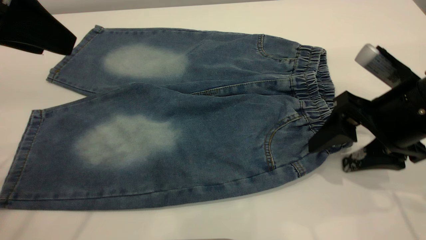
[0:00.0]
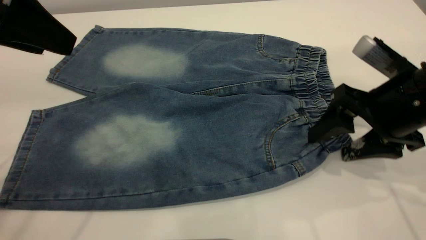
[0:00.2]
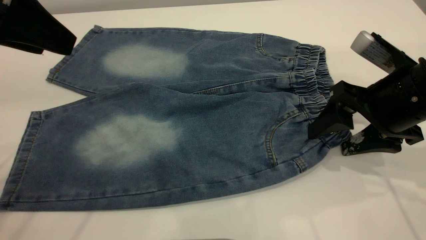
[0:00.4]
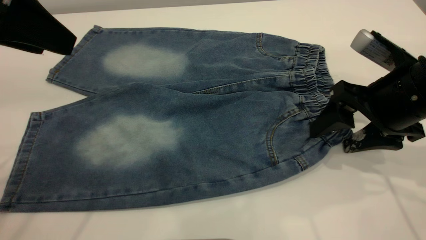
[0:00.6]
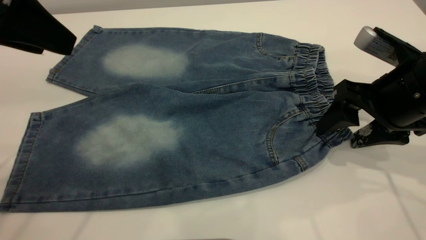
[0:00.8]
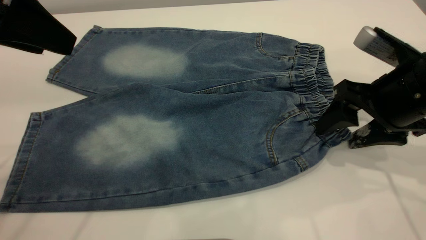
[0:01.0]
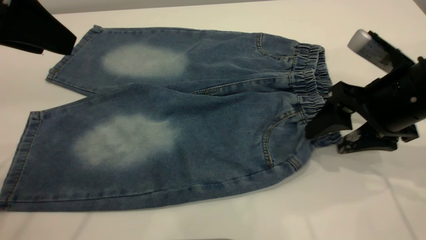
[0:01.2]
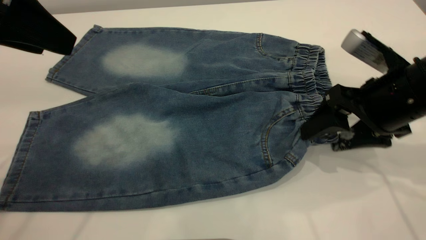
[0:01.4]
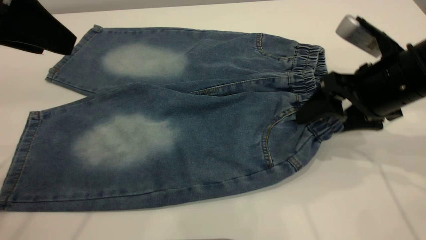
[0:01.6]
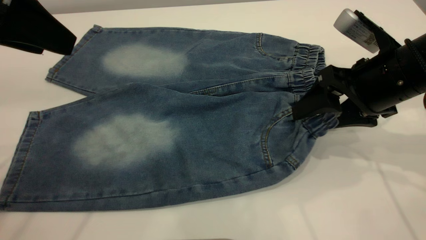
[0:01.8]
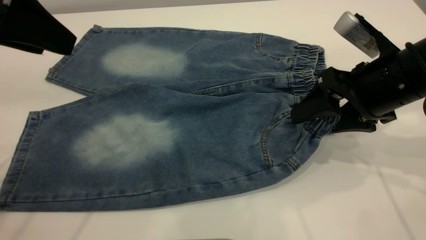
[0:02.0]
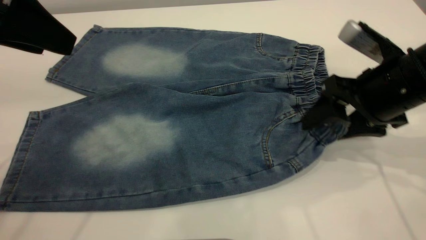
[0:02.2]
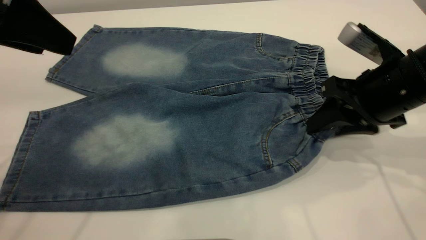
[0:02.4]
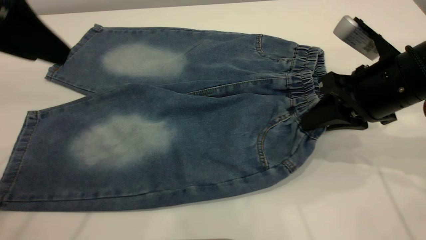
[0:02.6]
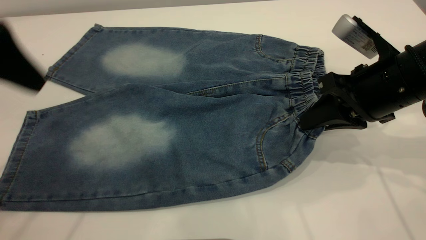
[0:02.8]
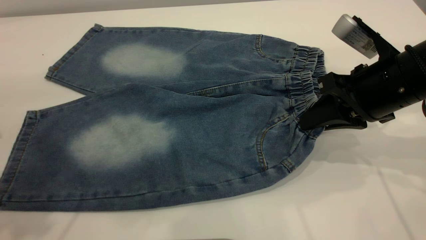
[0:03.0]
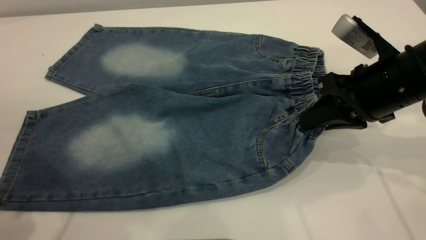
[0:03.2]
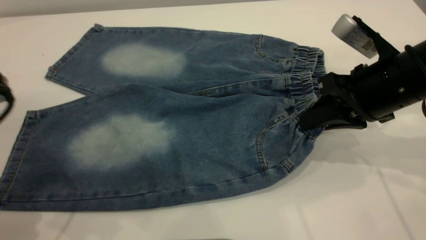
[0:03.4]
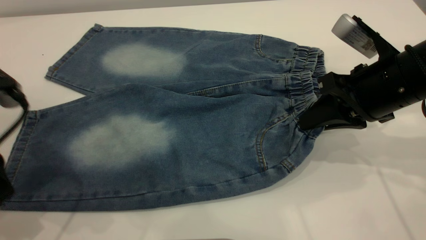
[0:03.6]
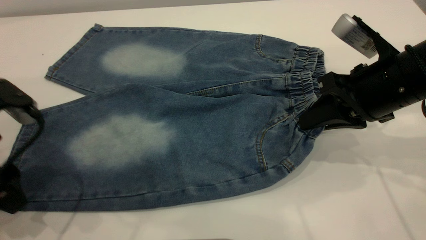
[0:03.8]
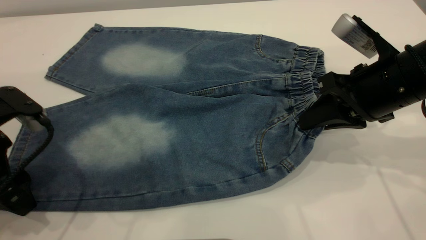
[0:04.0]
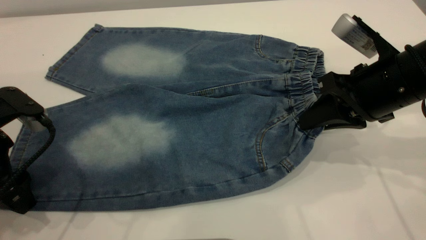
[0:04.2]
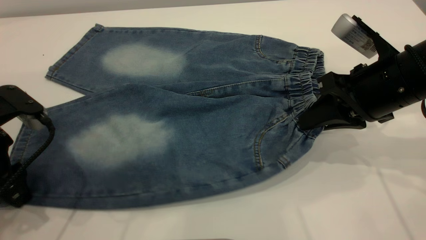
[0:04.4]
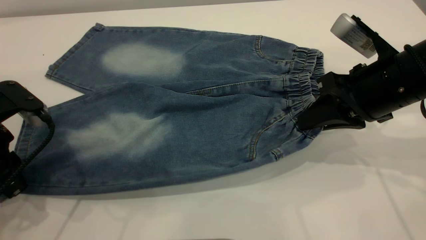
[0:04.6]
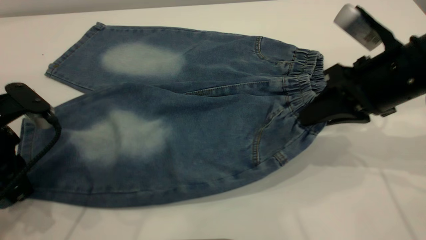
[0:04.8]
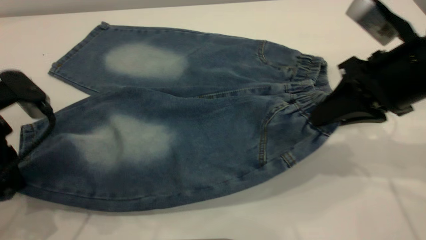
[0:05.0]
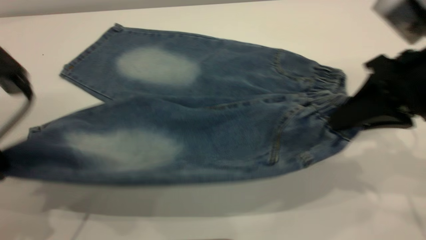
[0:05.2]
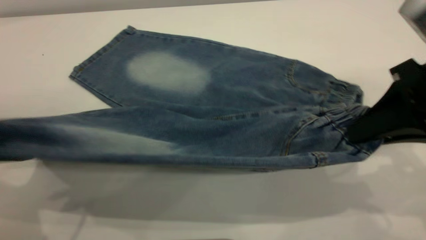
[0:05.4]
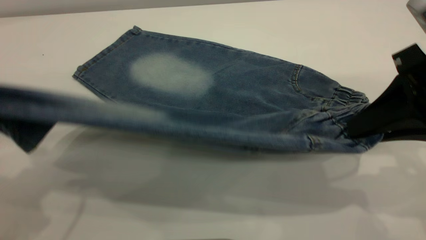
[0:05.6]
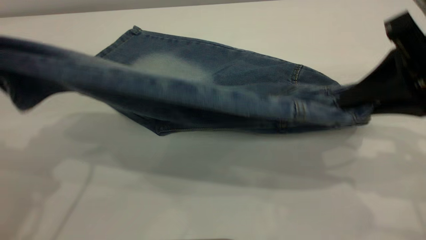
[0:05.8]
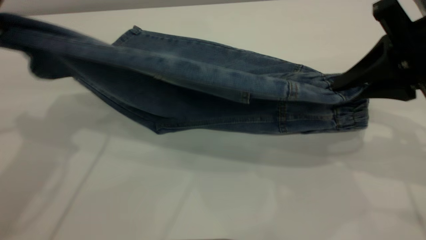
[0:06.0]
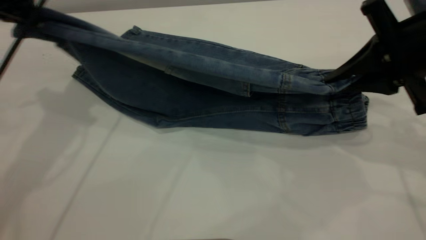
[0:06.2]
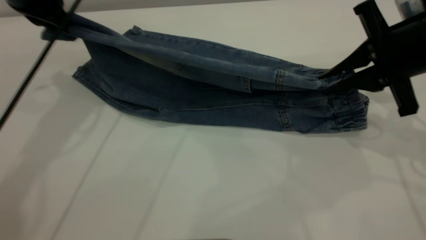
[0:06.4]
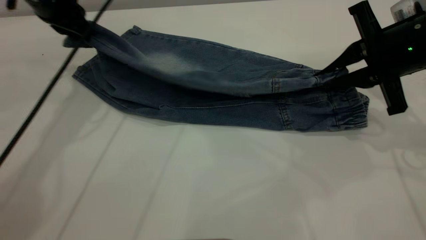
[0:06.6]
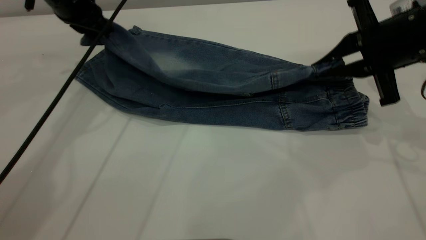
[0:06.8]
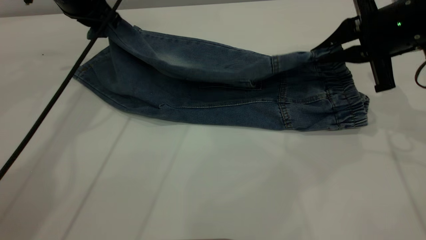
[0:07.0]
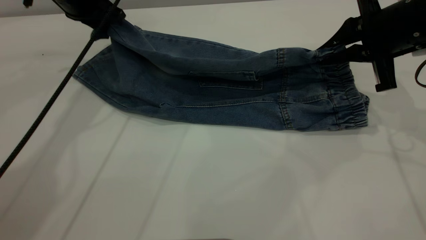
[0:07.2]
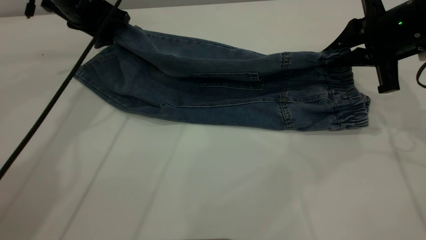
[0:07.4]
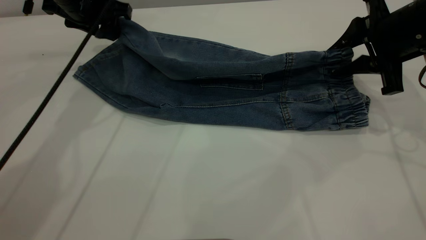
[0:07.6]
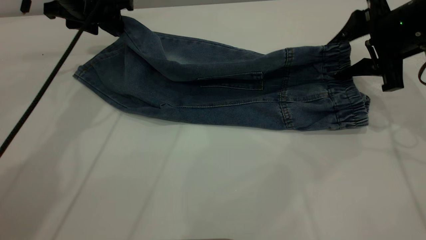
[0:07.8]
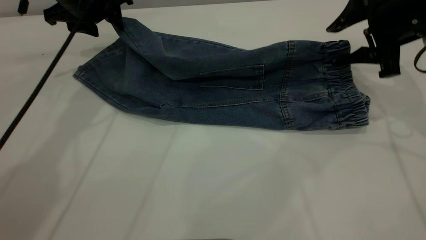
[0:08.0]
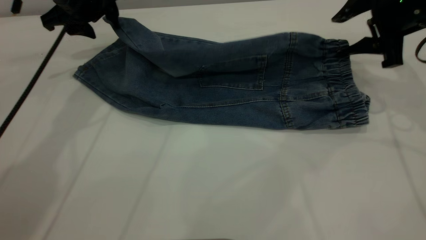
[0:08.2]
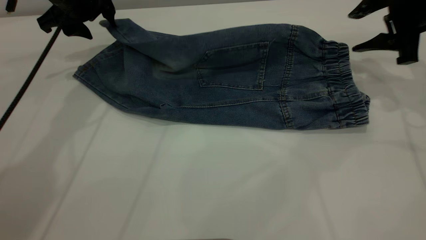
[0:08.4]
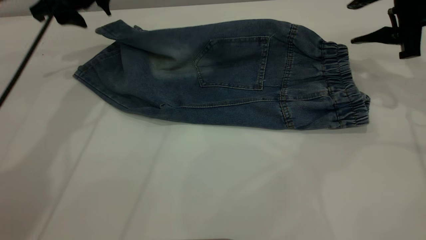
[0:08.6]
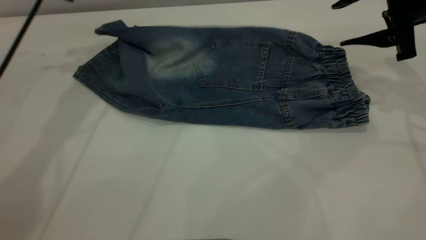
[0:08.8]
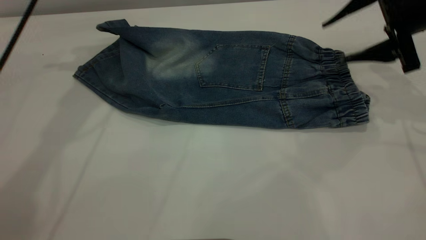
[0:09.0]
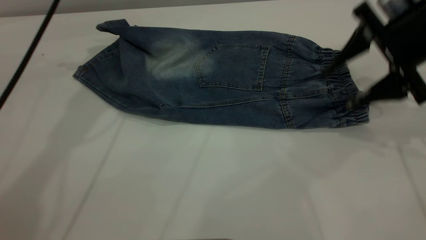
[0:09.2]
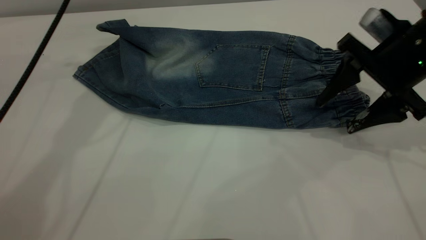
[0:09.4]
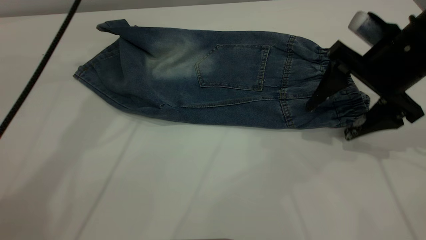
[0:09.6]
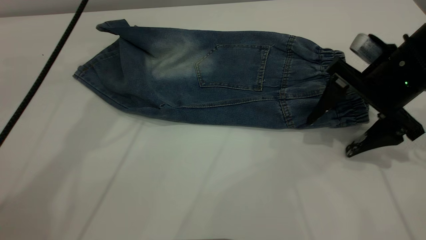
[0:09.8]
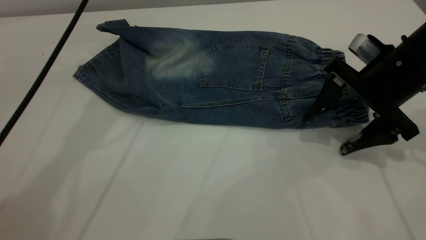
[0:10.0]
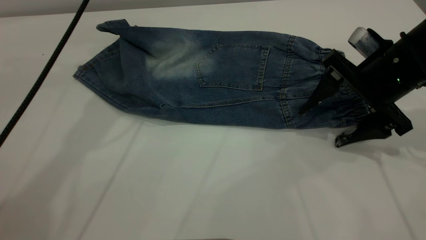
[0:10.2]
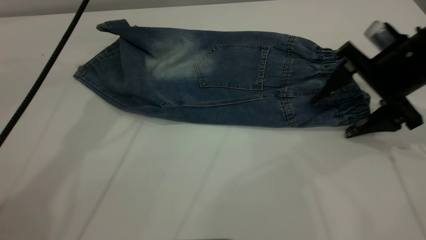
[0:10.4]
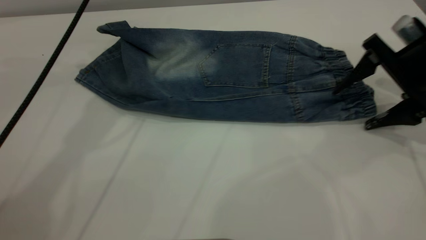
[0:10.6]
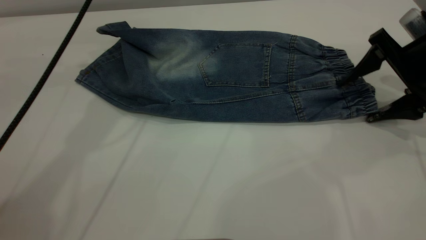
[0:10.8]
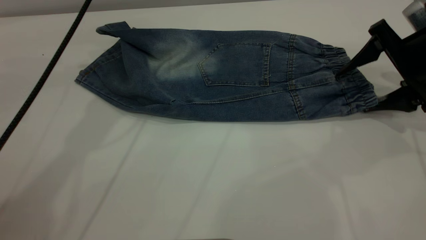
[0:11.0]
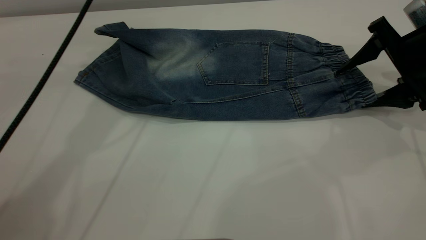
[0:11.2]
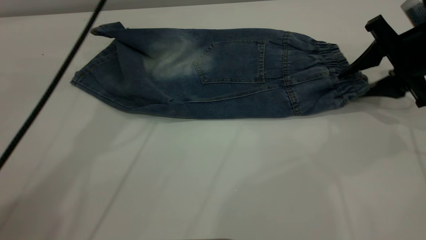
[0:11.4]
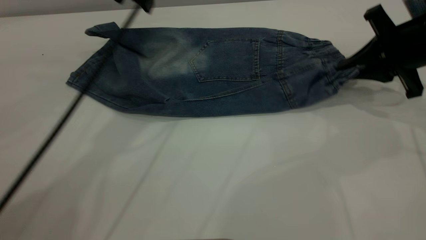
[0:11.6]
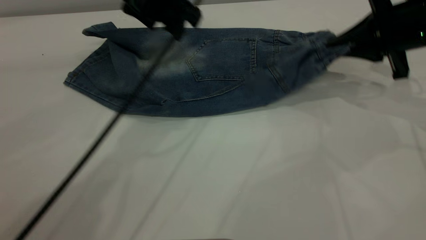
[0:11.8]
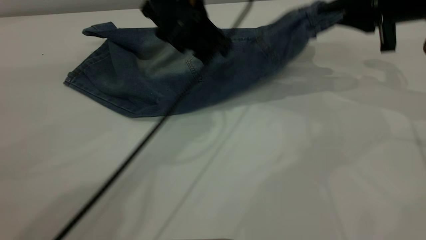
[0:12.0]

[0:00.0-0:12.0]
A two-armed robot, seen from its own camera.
Step, 0:00.0 to 0:09.0: Fold the bottom of the pants upward.
0:00.0 to 0:01.6: The grippers move only a little.
0:01.6 to 0:03.0: The right gripper closes up, while the left gripper moves about 5 cm.
0:03.0 to 0:04.4: The left gripper goes roughly 10 cm downward, and closes its fingers.
0:04.4 to 0:06.0: The left gripper is displaced upward and forward by some 20 cm, and closes up. The right gripper travels upward by some 5 cm.
0:06.0 to 0:07.6: The right gripper is displaced forward by about 10 cm, and opens its fingers. Meanwhile the left gripper is displaced forward and downward by some 15 cm, and opens its fingers.
0:07.6 to 0:09.0: The left gripper moves upward, about 10 cm.
0:09.0 to 0:10.4: The right gripper travels downward by approximately 5 cm.
0:10.4 to 0:12.0: The left gripper moves to the right, downward and backward, approximately 20 cm. Meanwhile the right gripper shifts about 10 cm upward and forward, and closes.

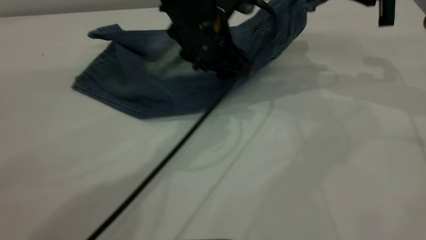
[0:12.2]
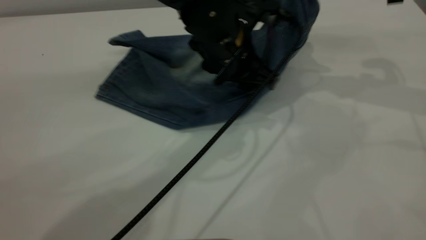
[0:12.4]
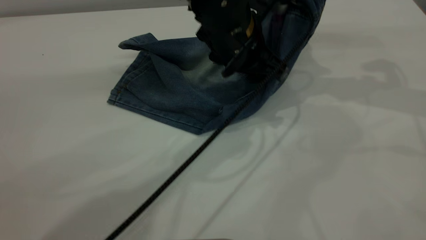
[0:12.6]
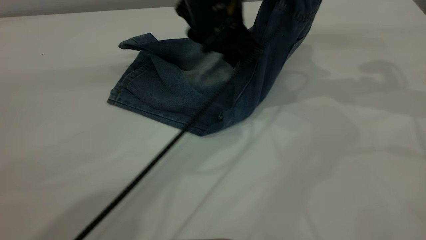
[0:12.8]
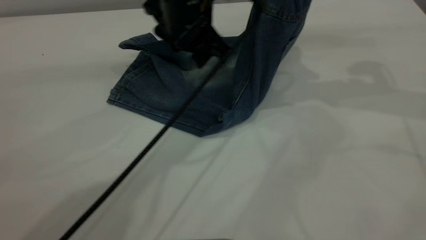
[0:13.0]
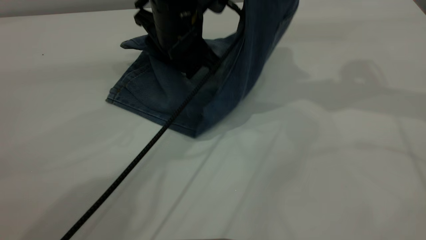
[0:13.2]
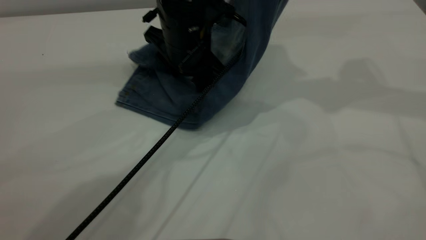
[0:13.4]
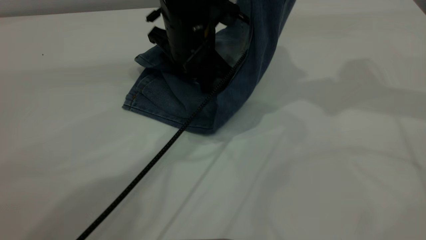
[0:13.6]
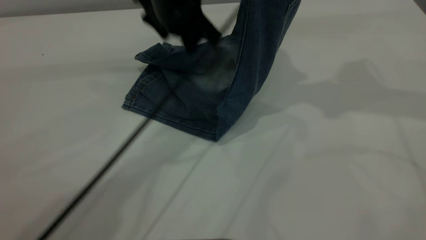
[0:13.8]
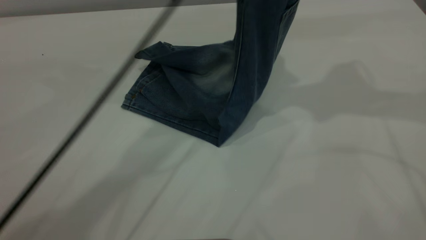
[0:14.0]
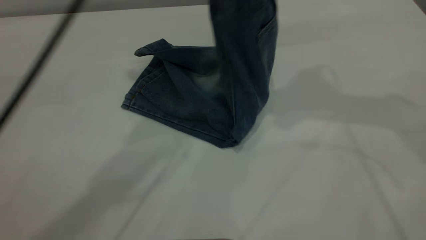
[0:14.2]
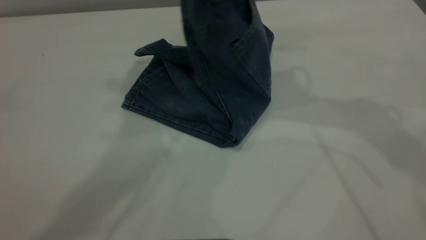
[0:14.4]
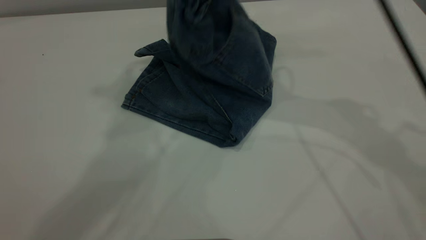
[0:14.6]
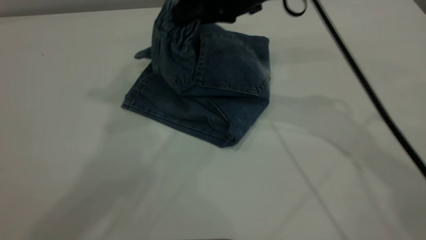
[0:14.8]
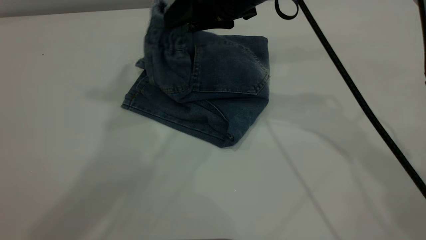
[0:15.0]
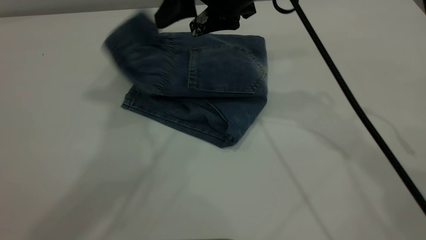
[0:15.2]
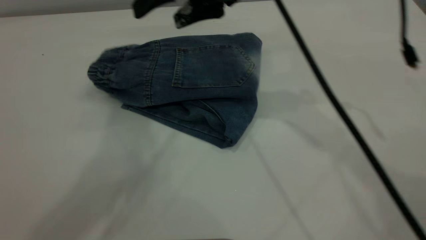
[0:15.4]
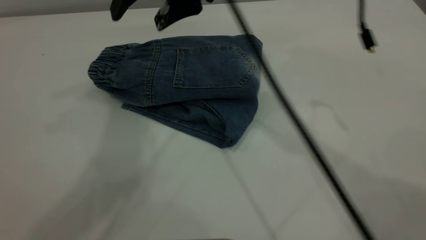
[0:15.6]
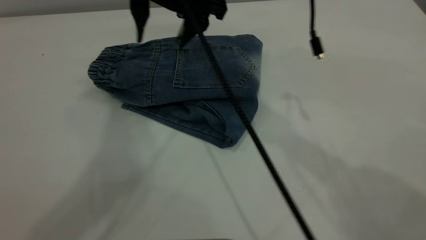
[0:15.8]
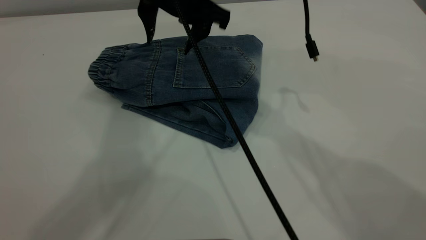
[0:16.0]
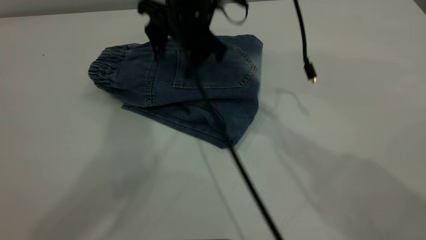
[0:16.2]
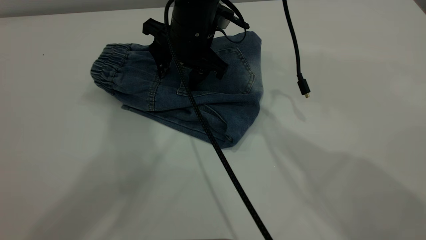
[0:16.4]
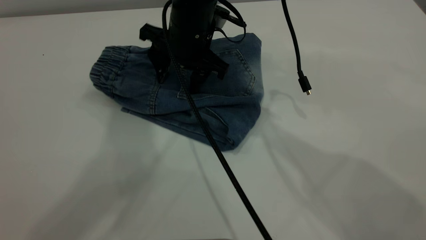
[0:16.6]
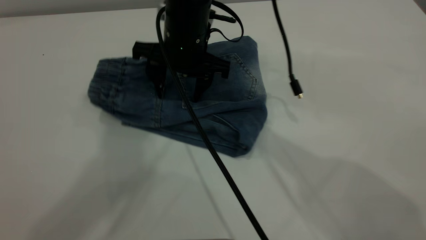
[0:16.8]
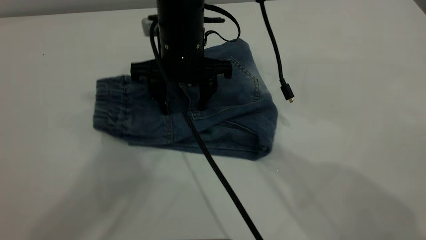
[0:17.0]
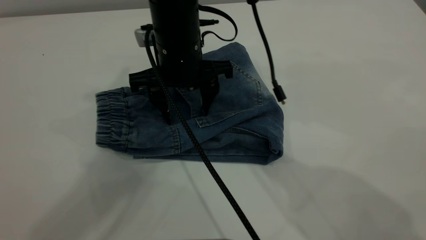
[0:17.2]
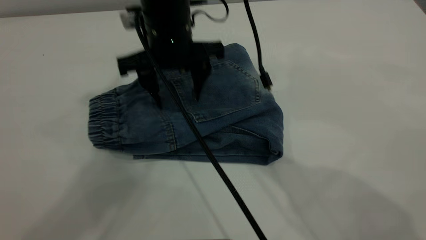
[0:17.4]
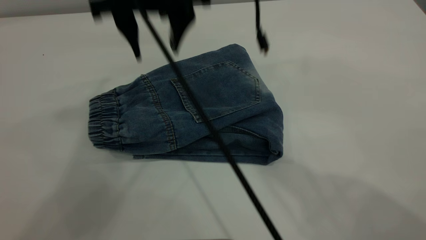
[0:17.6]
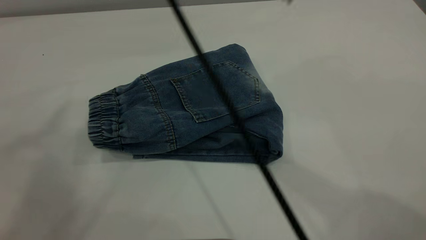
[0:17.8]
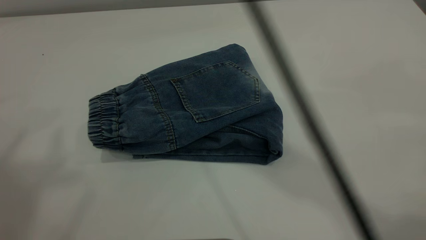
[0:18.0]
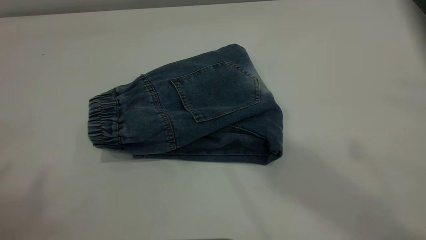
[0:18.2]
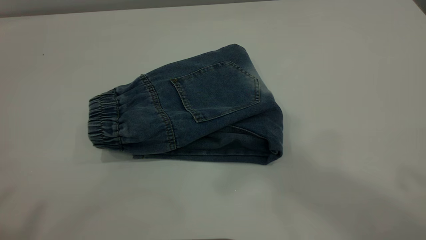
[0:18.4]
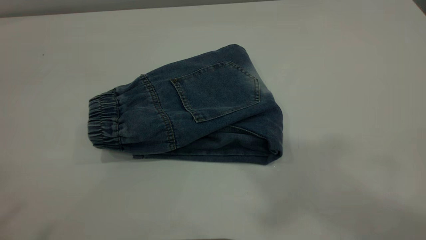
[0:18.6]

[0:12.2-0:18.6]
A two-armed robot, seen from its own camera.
Step, 0:12.2 to 0:15.4: Fold your pants from right to left.
0:12.2 to 0:13.8: The right gripper is displaced upward by approximately 10 cm. The left gripper travels upward by approximately 5 cm.
0:13.8 to 0:15.4: The left gripper travels upward by roughly 25 cm, while the right gripper travels to the left by about 20 cm, and opens.
0:15.4 to 0:17.0: The right gripper is displaced downward and to the left by about 15 cm.
0:17.0 to 0:18.6: The right gripper goes roughly 50 cm upward; the left gripper shifts some 25 cm backward and to the left.
